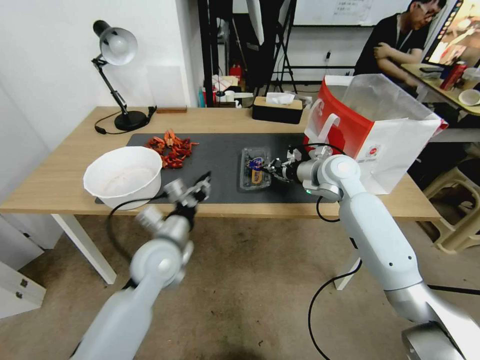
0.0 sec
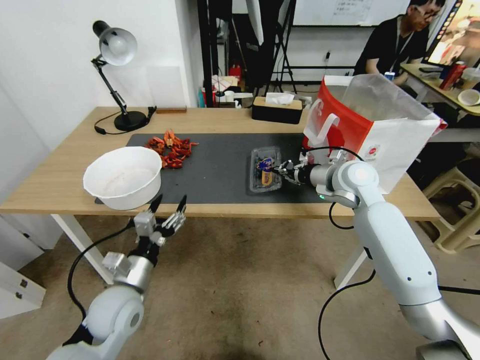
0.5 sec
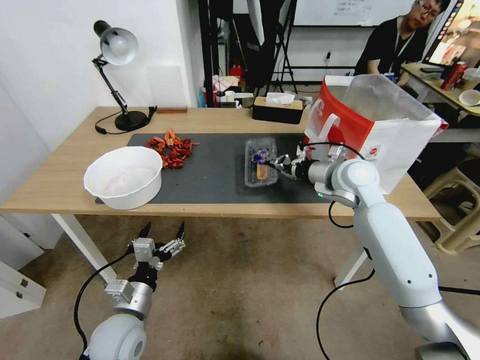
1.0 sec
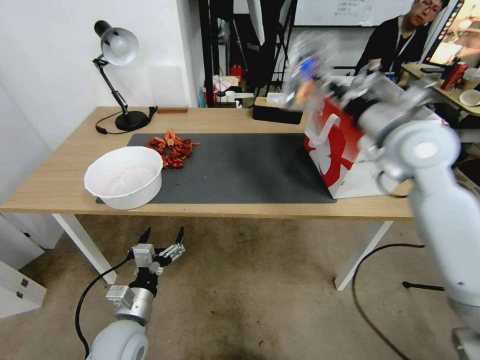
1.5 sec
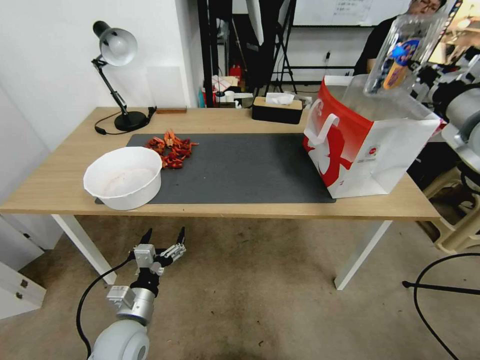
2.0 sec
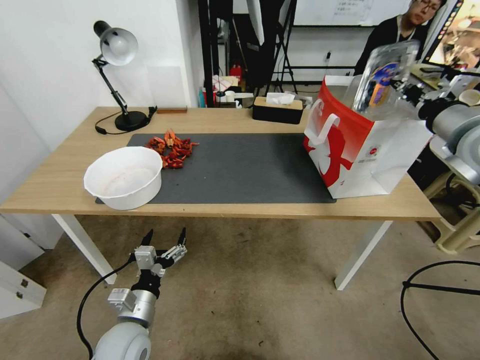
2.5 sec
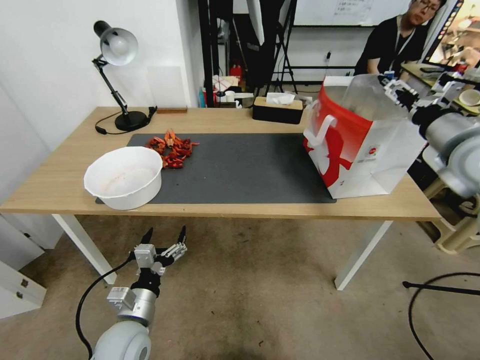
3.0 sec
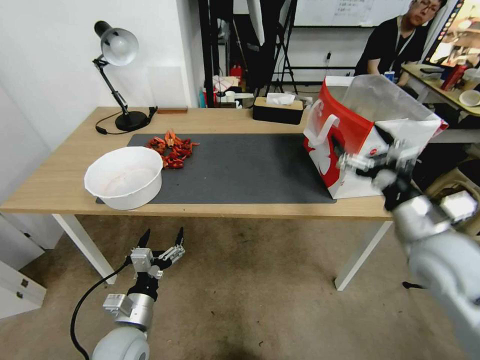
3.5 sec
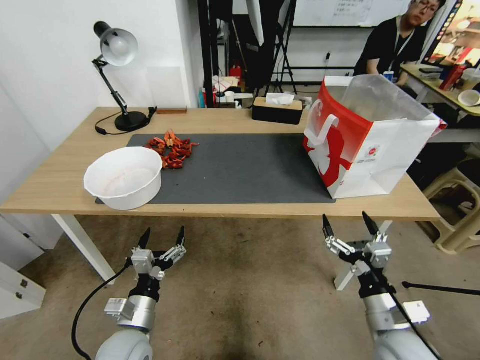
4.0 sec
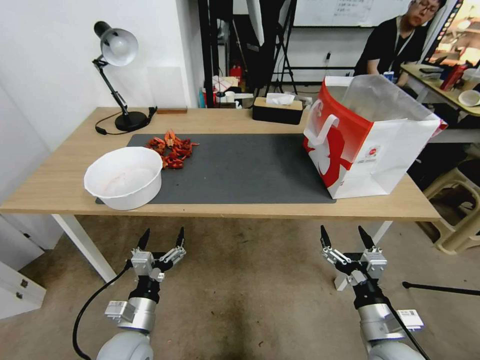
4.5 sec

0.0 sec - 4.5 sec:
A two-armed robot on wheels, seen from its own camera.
Task of the whole recording: Close the takeout container lid, then place the container into the takeout bag.
0.0 sec - 2.0 sec: The right gripper shifts about 25 cm upward, to the right and backward; the left gripper moves backward, downward and to the left, about 20 cm, and opens.
2.0 sec - 4.5 sec: The right gripper travels downward and backward by some 40 cm, and opens its fingers.
